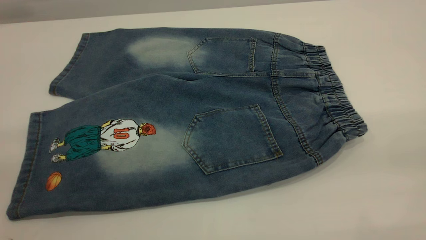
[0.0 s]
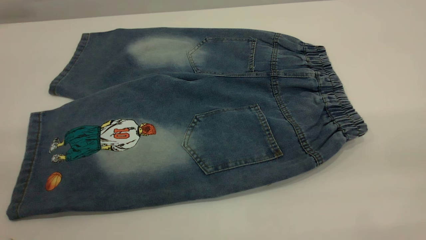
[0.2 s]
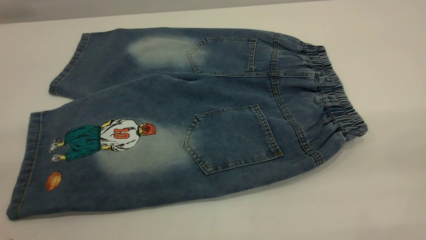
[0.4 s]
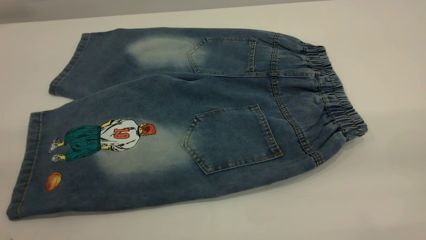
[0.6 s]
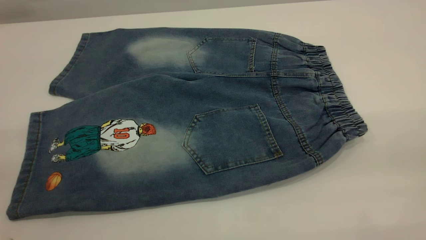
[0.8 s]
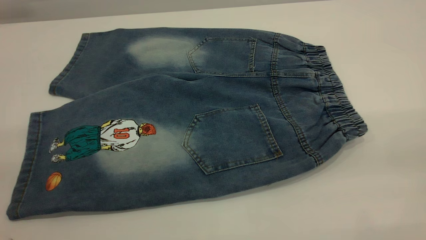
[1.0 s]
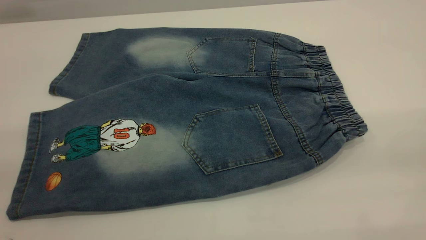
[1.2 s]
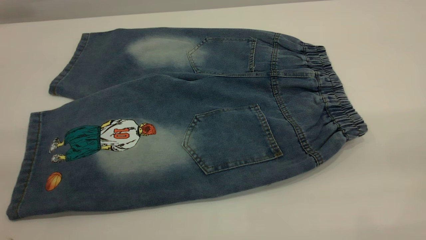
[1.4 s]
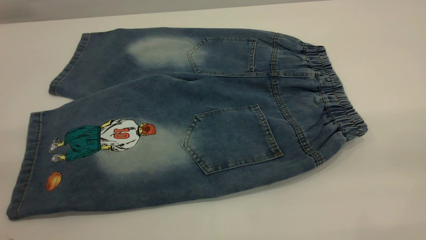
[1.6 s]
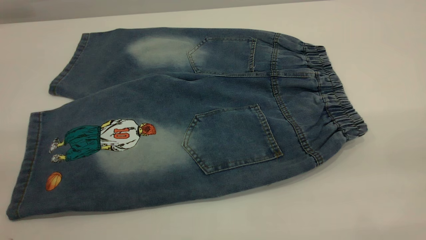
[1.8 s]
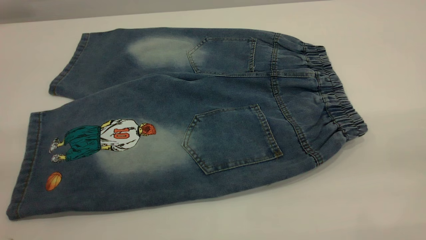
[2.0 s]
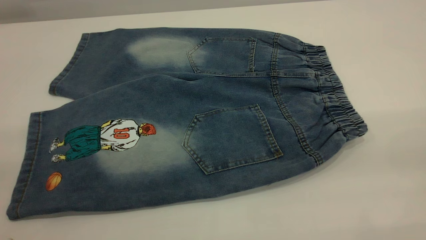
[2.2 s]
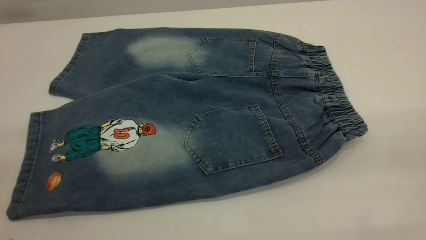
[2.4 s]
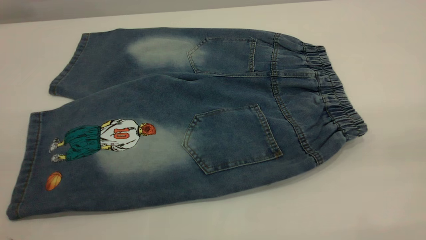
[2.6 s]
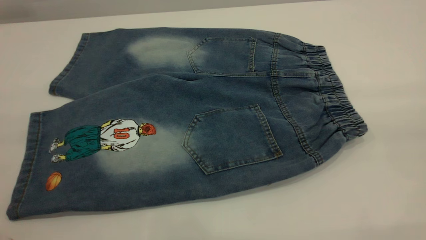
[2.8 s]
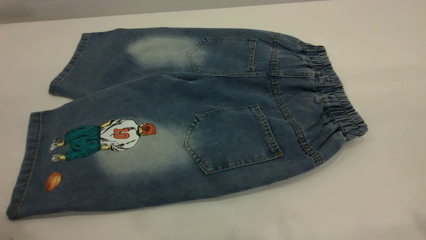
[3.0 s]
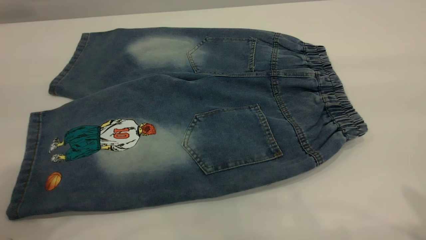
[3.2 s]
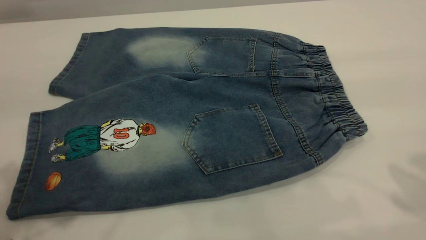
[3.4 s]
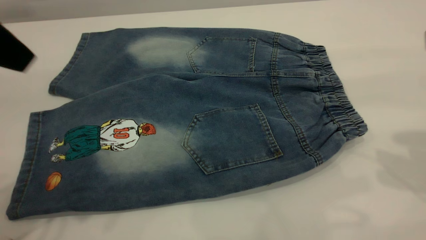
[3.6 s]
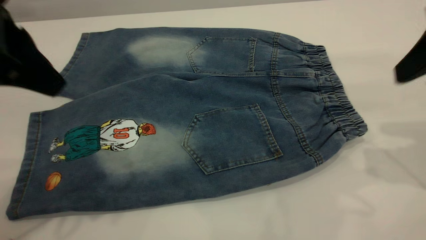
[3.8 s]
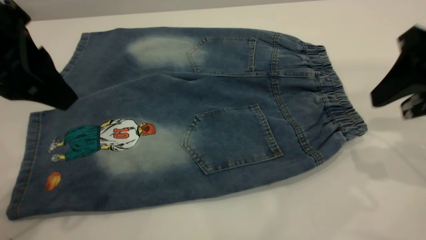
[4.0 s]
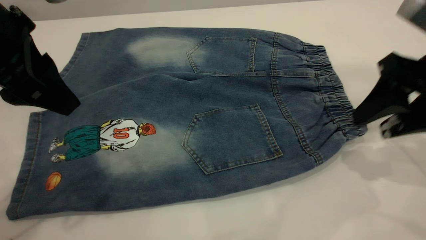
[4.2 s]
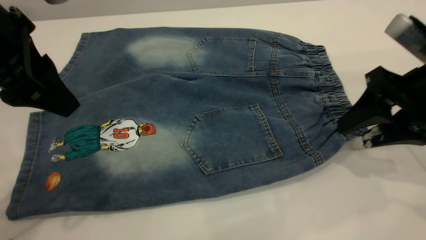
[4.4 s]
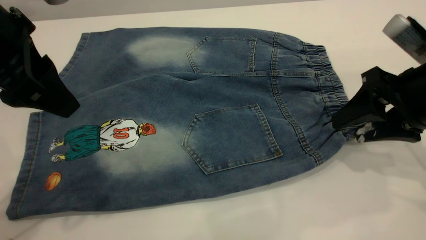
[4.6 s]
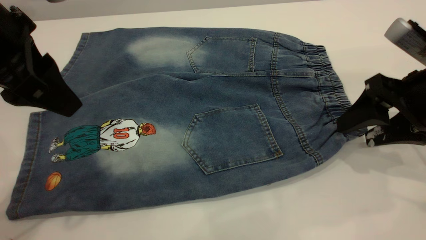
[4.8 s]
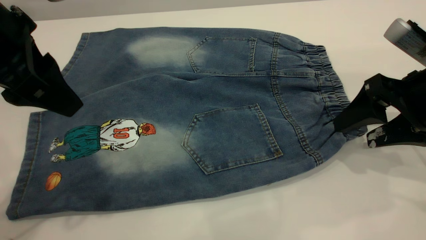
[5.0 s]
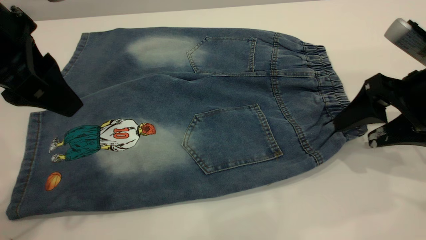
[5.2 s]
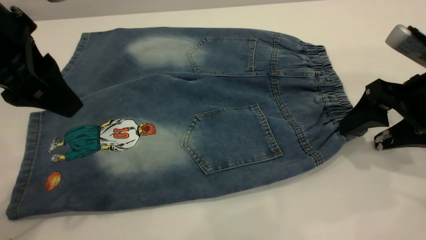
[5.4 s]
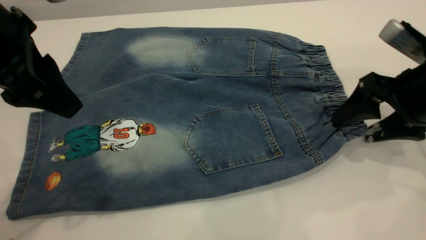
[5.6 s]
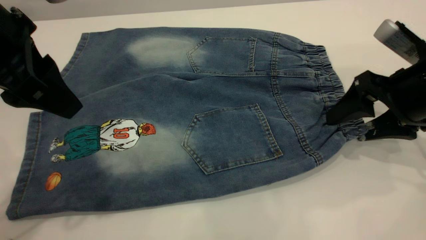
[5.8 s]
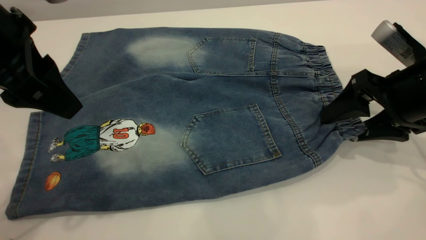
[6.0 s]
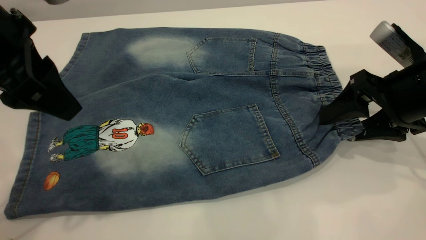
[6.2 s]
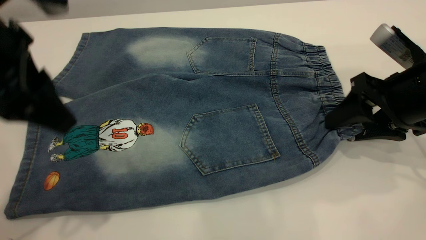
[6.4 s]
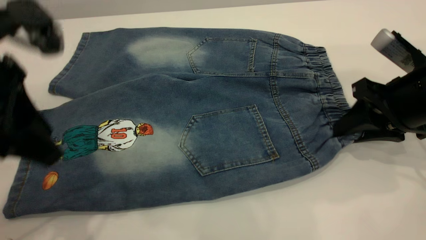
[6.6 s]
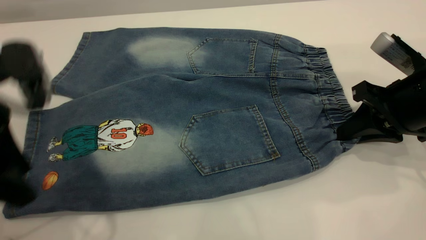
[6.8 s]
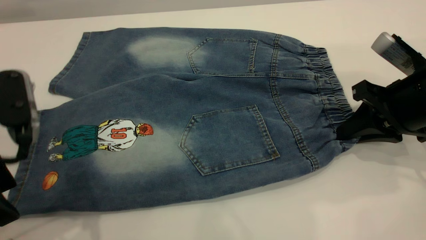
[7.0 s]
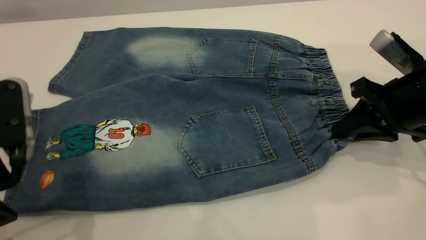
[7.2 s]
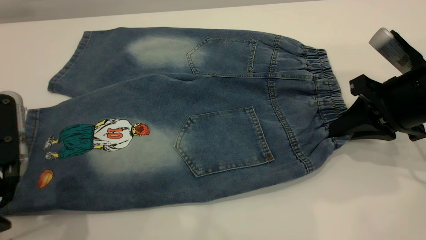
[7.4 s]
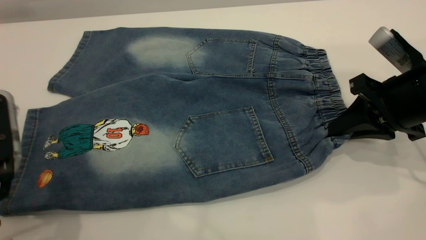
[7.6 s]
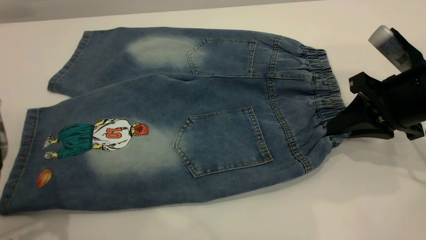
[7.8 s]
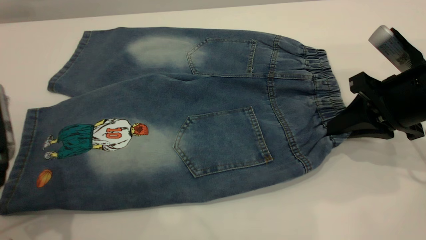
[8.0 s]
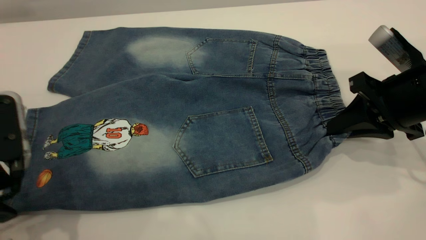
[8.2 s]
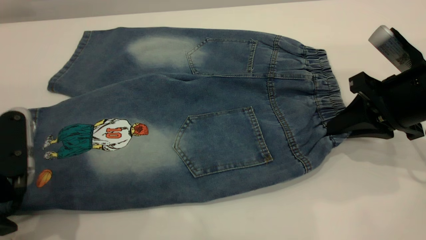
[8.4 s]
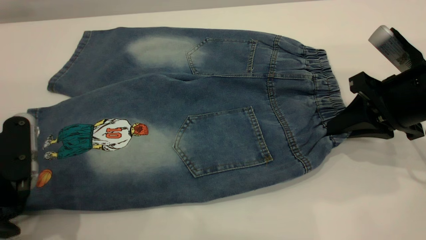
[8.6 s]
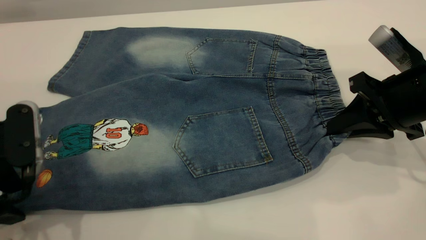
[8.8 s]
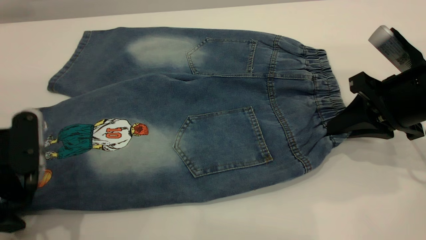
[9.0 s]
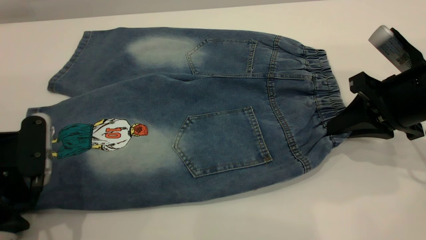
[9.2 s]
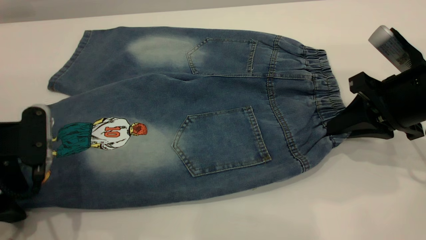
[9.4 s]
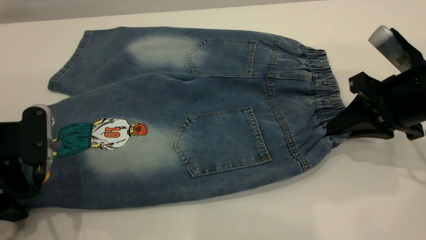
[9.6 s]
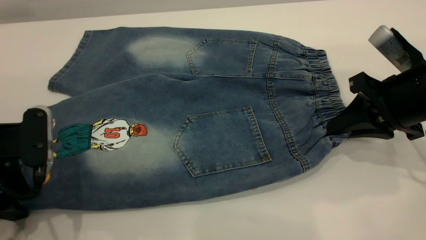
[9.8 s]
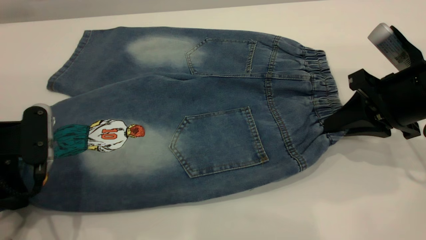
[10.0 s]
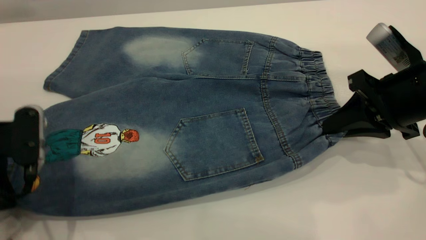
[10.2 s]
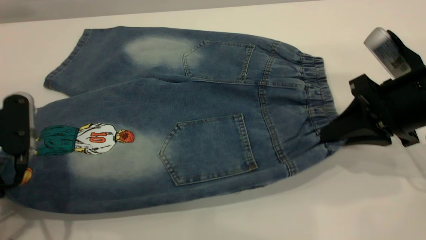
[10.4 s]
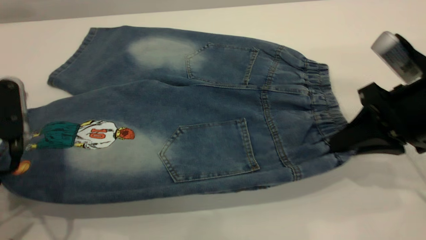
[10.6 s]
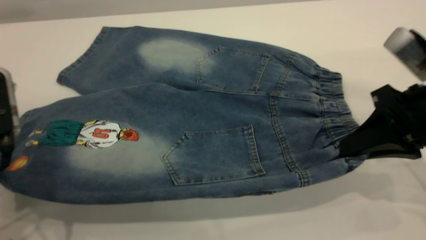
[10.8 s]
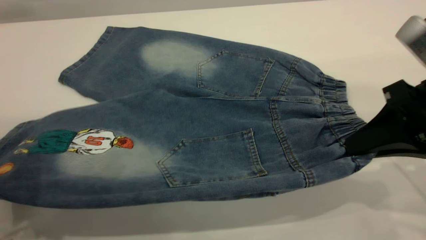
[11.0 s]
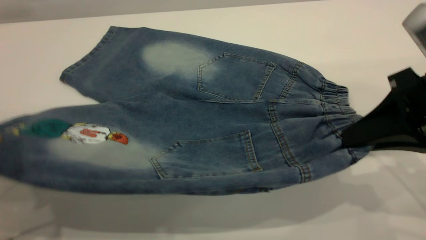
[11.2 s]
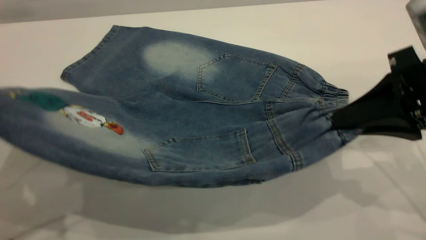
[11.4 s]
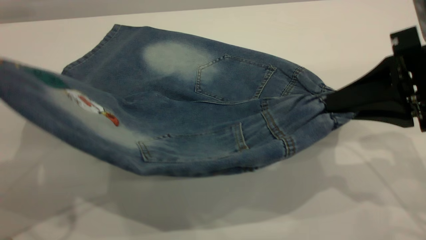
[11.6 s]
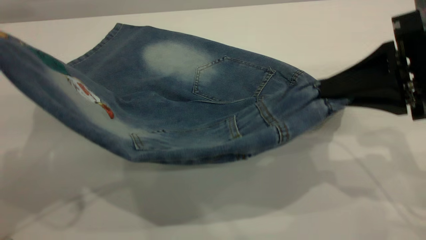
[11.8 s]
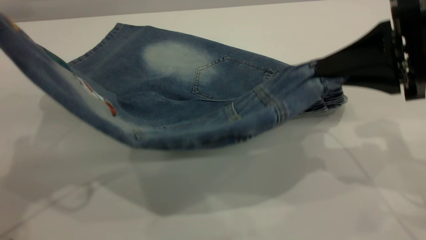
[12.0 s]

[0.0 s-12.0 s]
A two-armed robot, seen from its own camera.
0.0 to 1.6 s: Both grippers stay about where they are.
3.0 to 4.4 s: The left gripper goes some 20 cm downward, forward and to the right. The right gripper moves downward and forward, approximately 25 cm.
4.4 to 6.0 s: The grippers stay close to where they were, moving slightly.
6.0 to 7.6 s: The left gripper goes some 10 cm backward, downward and to the left. The right gripper closes.
7.6 to 9.0 s: The left gripper changes place by roughly 5 cm.
9.0 to 10.4 s: The left gripper closes.
10.4 to 12.0 s: The left gripper shifts approximately 15 cm upward; the right gripper goes approximately 10 cm upward.

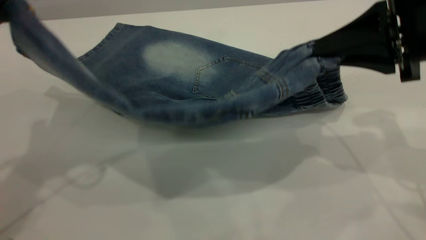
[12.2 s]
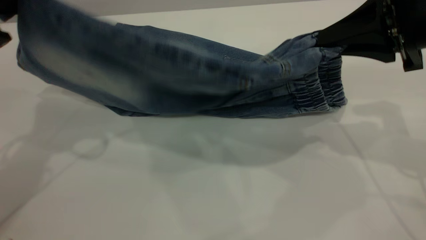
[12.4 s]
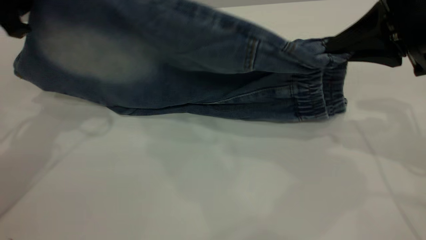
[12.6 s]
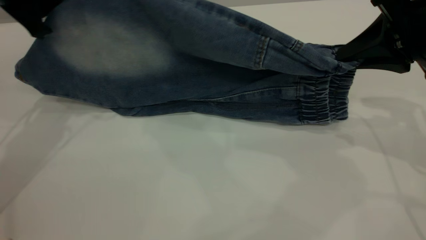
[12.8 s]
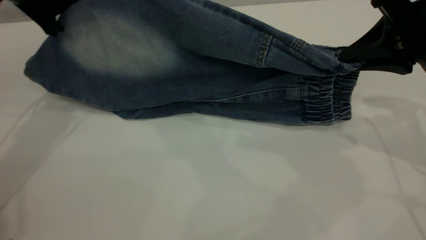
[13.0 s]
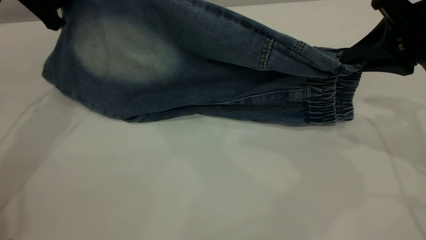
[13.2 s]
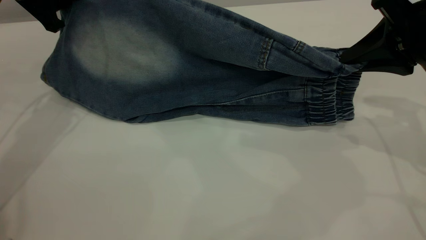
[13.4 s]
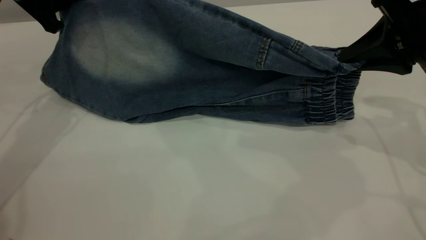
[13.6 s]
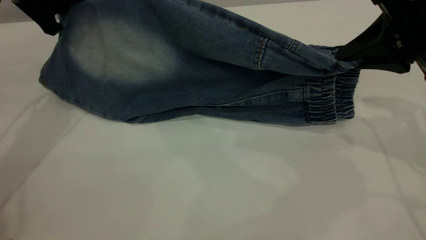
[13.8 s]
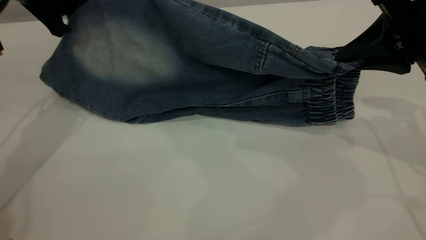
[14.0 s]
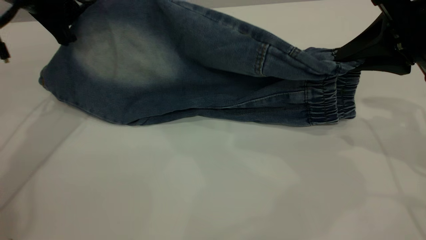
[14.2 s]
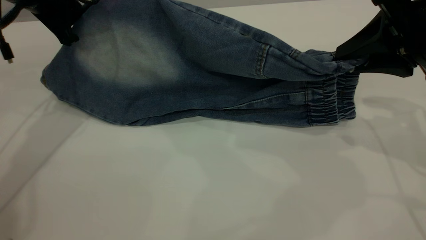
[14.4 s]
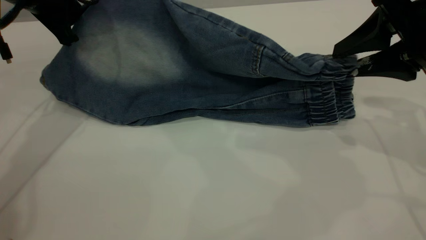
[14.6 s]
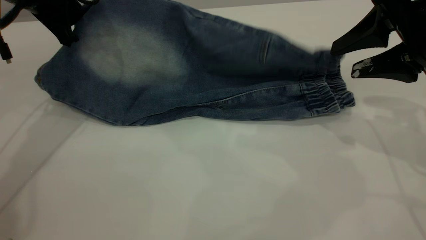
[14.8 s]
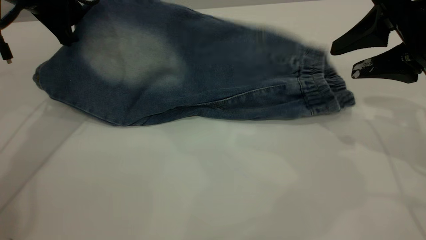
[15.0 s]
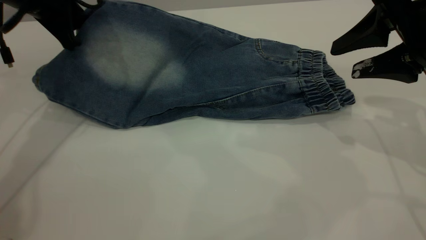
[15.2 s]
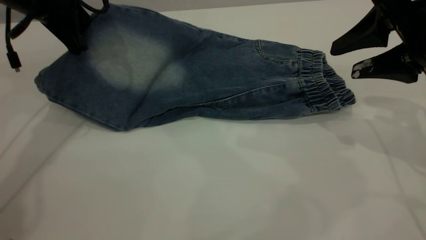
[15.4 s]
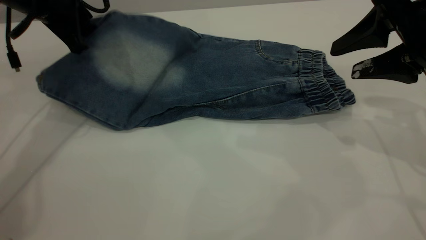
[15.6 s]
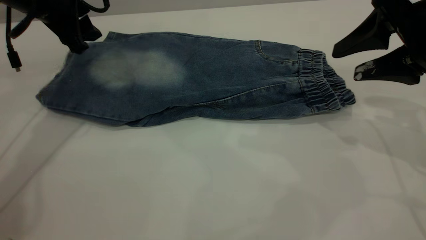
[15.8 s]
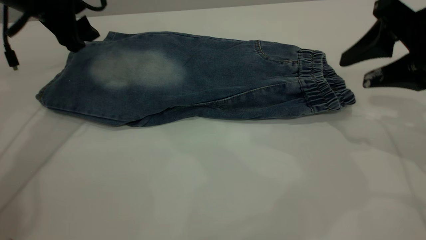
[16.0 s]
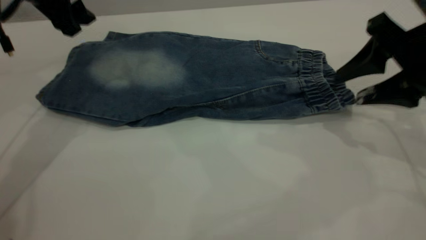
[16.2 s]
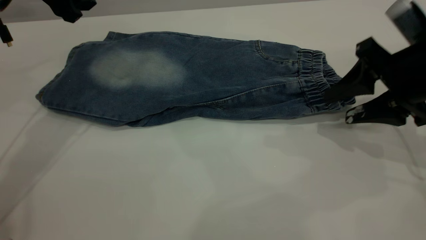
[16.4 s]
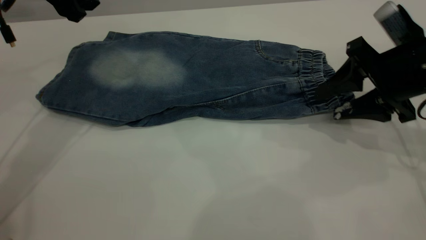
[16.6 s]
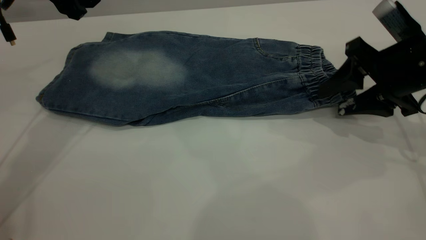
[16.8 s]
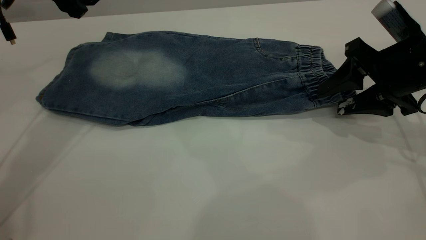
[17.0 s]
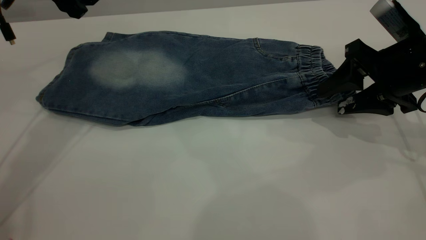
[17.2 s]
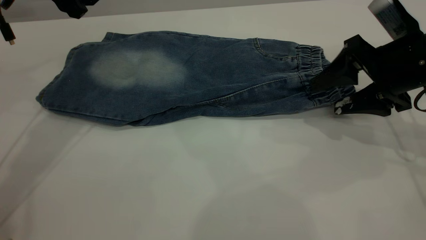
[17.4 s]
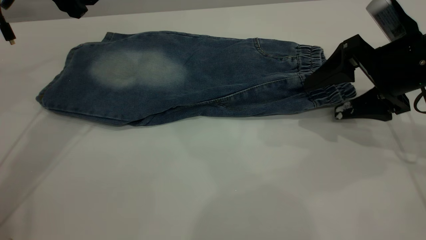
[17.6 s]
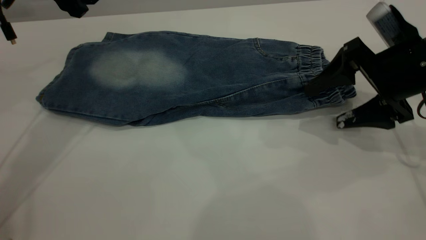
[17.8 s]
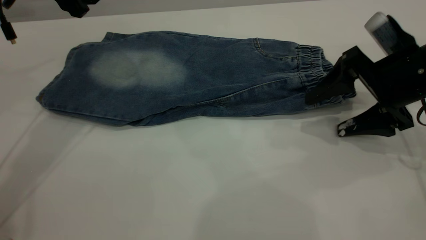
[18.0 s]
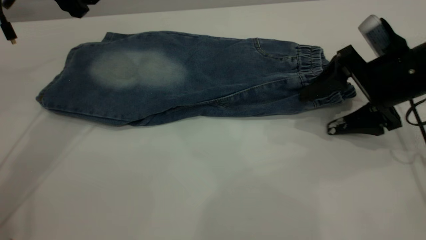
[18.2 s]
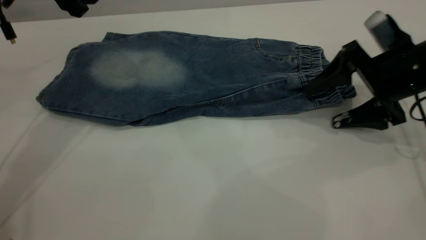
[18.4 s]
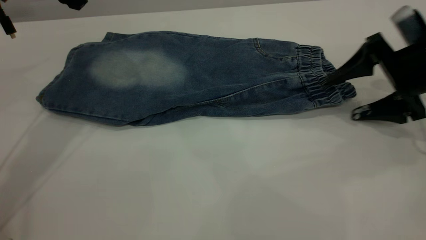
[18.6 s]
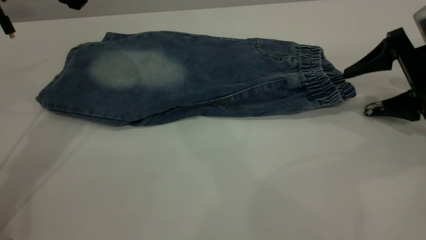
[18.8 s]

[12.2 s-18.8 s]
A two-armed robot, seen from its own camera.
Step, 12.2 to 15.6 s: Fold the bottom of the pants upward.
12.2 to 13.8 s: The left gripper moves forward, about 15 cm.
13.8 to 15.4 s: The right gripper opens.
15.4 to 17.2 s: The left gripper opens its fingers; the right gripper shifts some 5 cm downward.
17.2 to 18.8 s: The right gripper is displaced to the right by about 5 cm, and opens.
